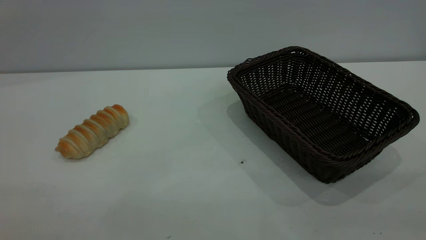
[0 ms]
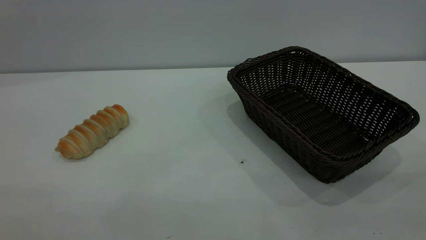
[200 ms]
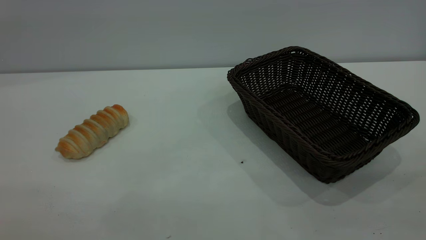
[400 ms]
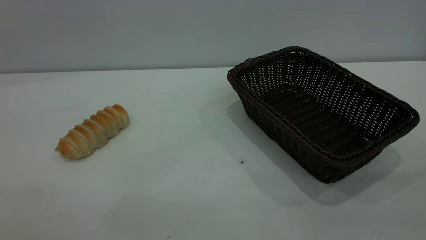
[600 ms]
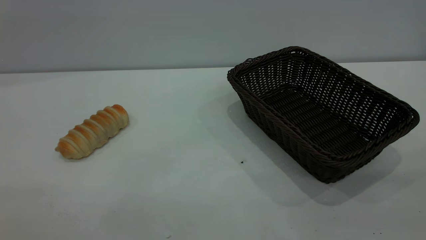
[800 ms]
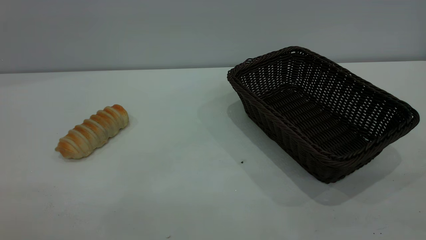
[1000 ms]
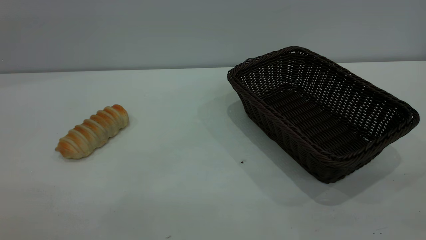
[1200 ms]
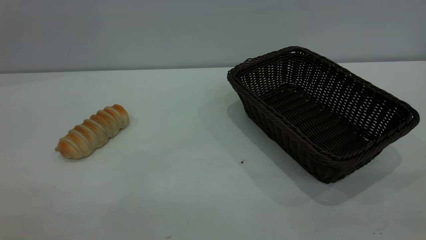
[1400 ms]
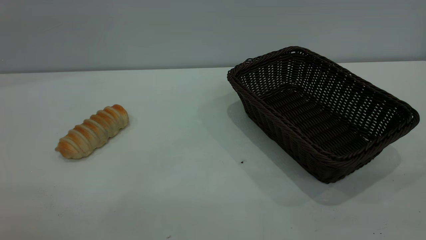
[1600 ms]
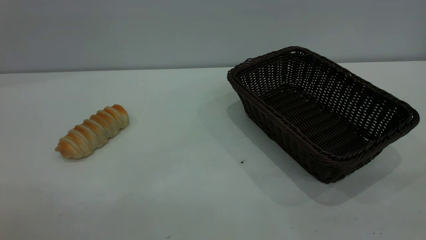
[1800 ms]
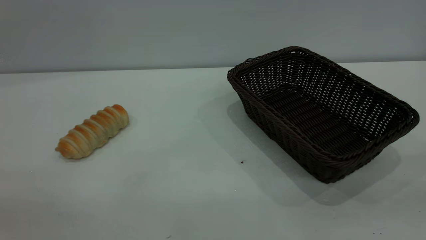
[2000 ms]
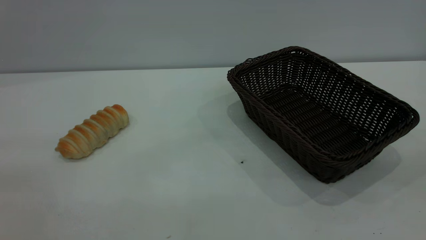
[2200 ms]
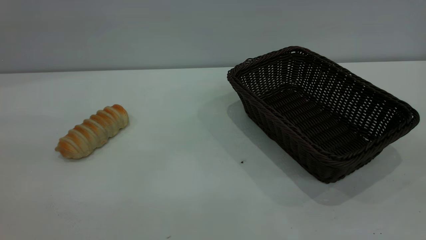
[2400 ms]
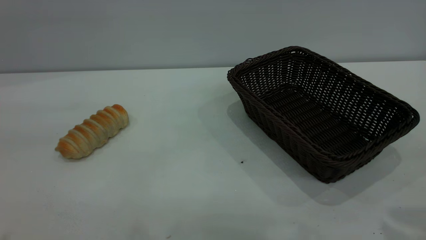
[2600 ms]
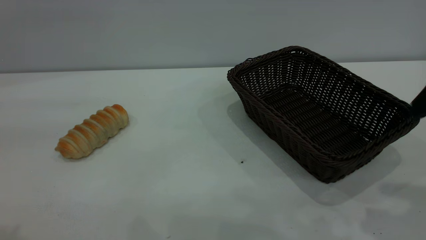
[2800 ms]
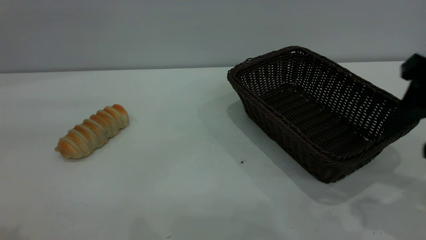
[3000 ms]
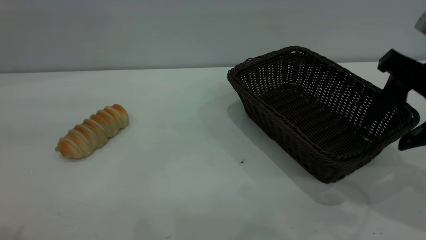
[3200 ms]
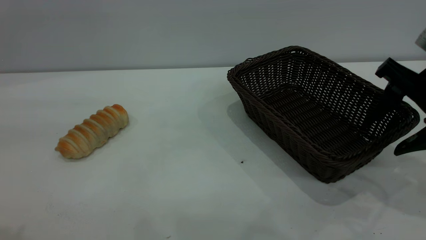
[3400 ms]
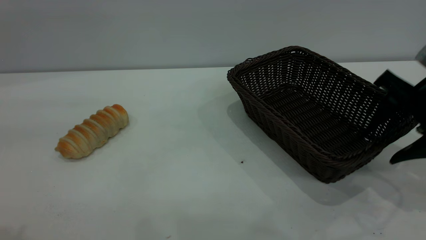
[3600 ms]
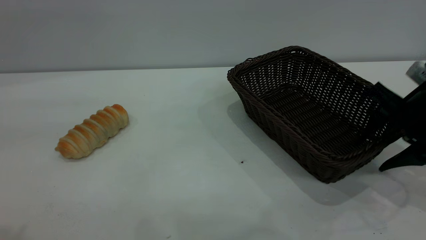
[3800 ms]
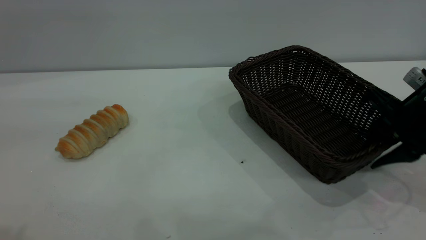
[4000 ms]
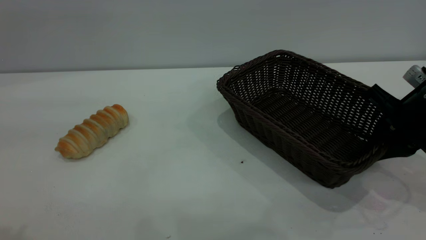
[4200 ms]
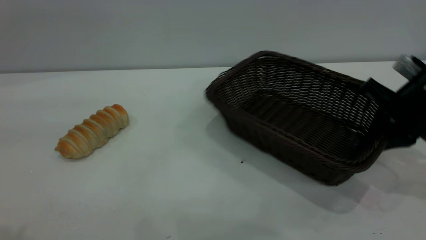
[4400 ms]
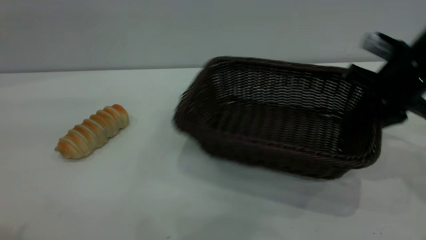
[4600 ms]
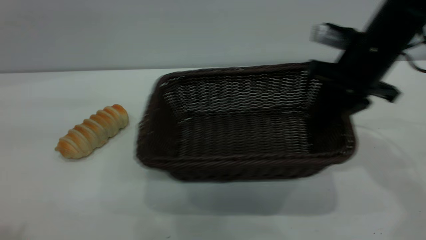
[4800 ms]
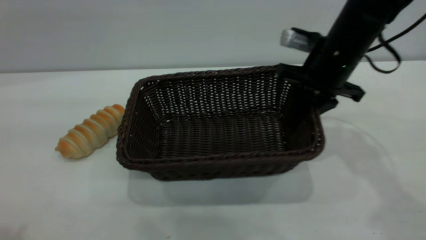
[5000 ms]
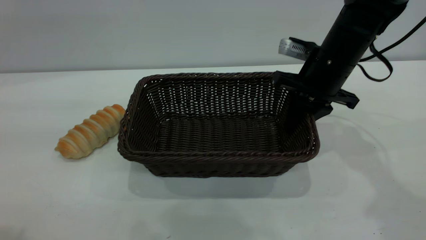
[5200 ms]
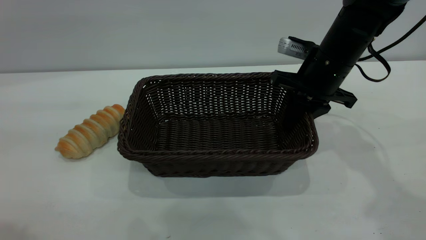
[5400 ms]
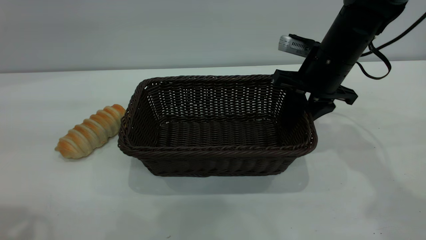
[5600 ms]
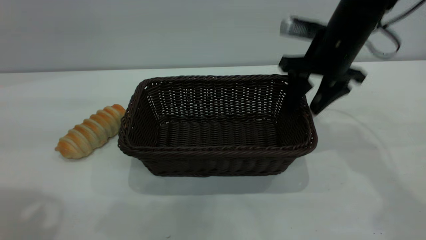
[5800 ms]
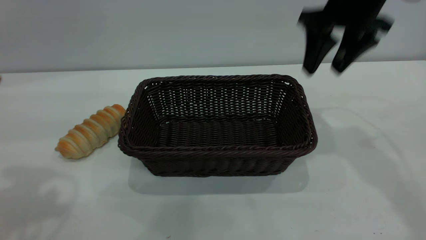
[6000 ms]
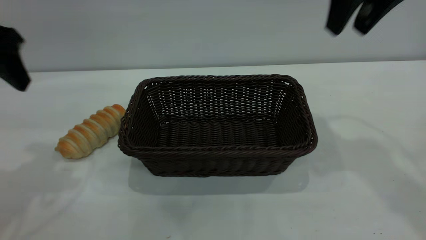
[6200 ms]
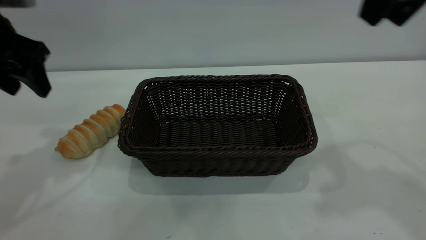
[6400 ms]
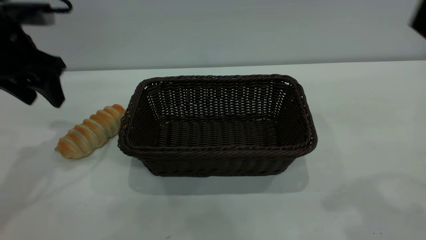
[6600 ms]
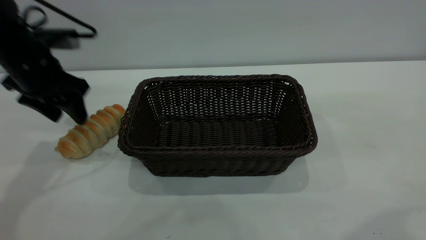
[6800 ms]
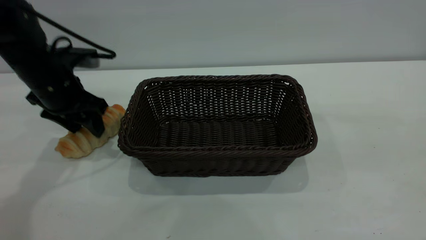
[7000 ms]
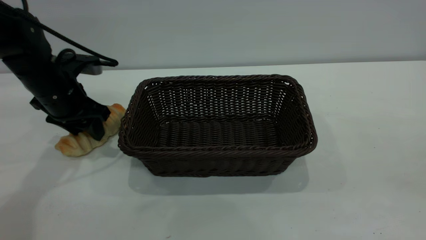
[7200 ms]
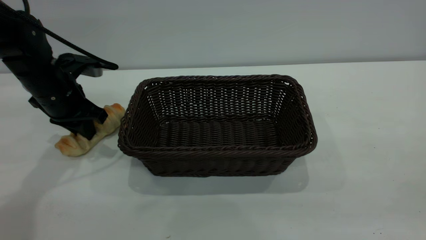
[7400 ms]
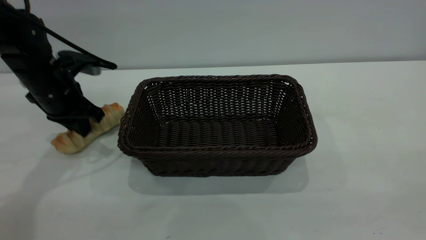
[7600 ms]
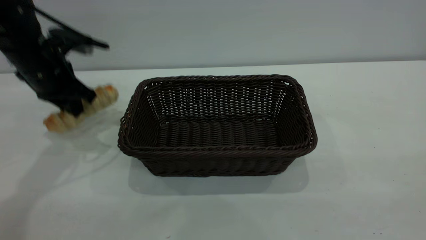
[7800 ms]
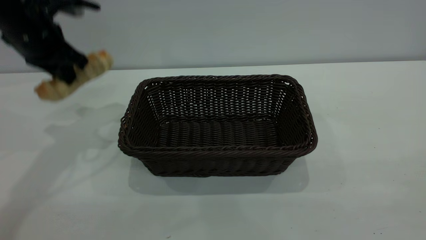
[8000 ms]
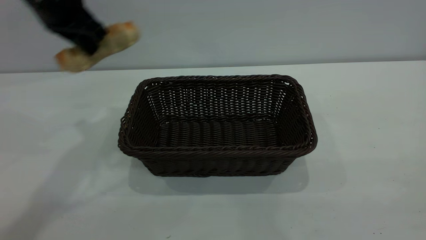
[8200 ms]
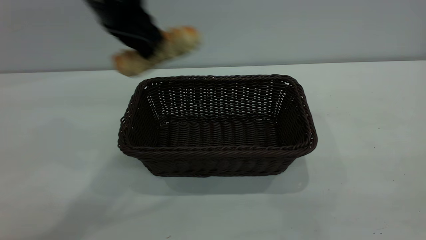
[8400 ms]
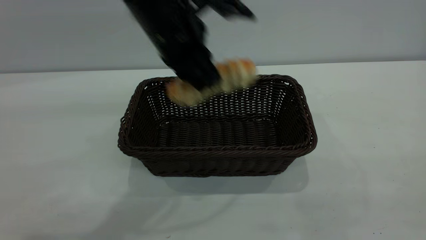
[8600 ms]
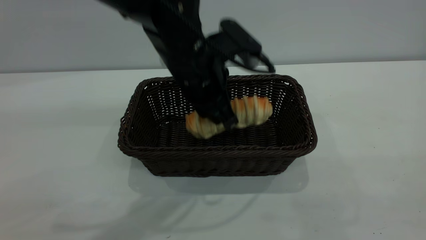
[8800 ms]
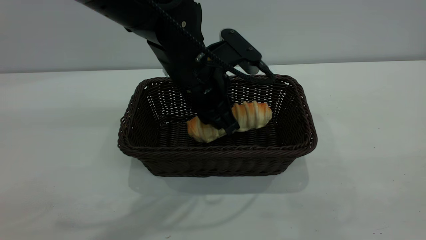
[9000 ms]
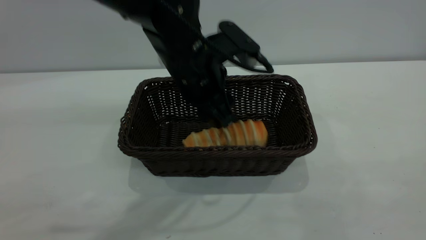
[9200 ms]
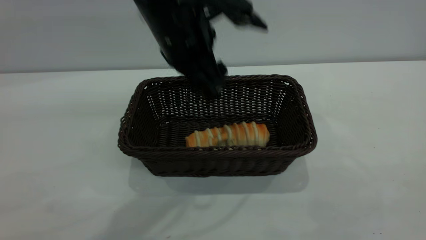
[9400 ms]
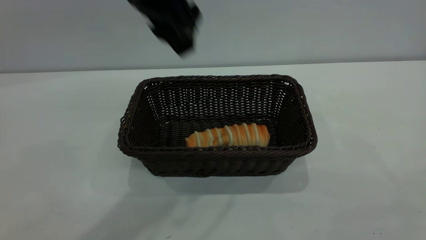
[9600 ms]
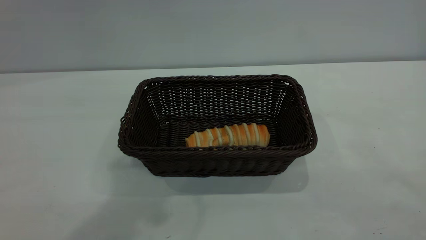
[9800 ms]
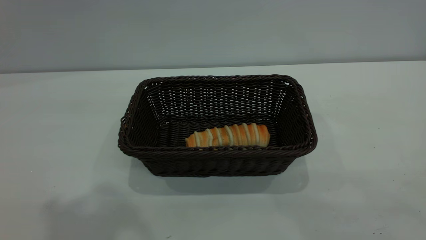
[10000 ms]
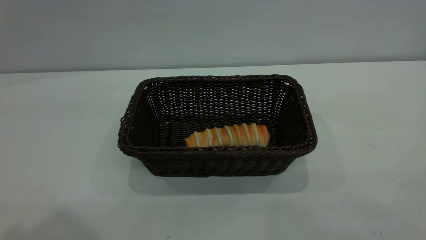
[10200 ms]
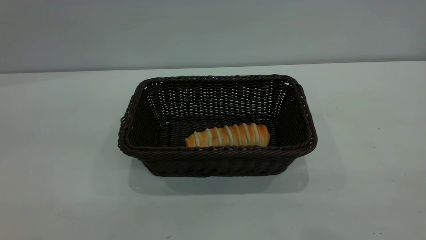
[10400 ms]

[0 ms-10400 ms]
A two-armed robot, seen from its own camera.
Task of the whole recording: One hand grasps the black basket and places it in the middle of the table, while the other hand picks up the long bread and puts it into the black basket.
Step, 0 ms to 5800 ms: Move the basket to the center of view.
Step, 8000 ms to 9600 ms: place the bread into the basket.
0 ms to 1400 ms: Both grippers stay about where they are.
1400 ms to 3000 ms: The right gripper shifts some 30 cm forward and downward, and opens up.
3000 ms to 4400 ms: The right gripper moves forward and downward, about 10 cm, and closes up.
4400 ms to 6000 ms: The right gripper travels upward, to the left and forward by some 15 cm, and opens; the left gripper travels forward and downward by roughly 15 cm.
6000 ms to 7400 ms: The right gripper heads backward, covering some 35 cm; the left gripper moves downward and forward, roughly 25 cm, and closes.
7400 ms to 9000 ms: The left gripper moves to the right, approximately 25 cm.
9000 ms to 10400 ms: The left gripper travels upward, backward and to the left by about 40 cm, and opens its fingers.
